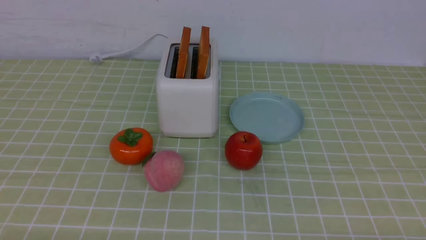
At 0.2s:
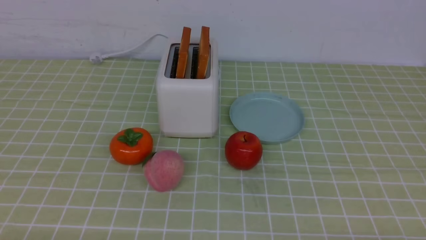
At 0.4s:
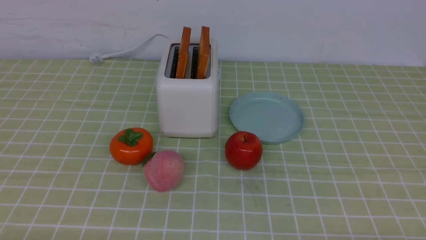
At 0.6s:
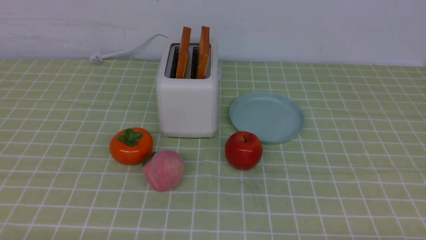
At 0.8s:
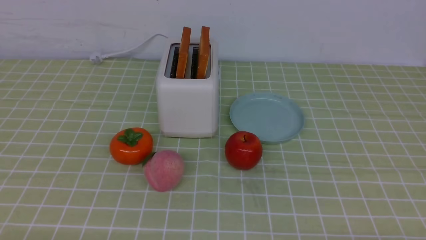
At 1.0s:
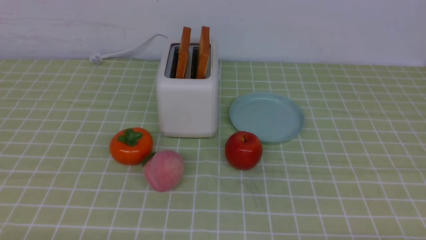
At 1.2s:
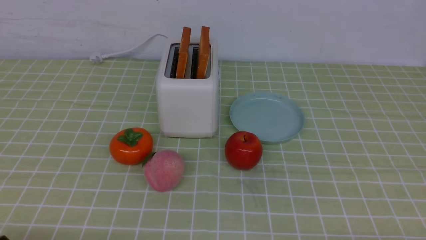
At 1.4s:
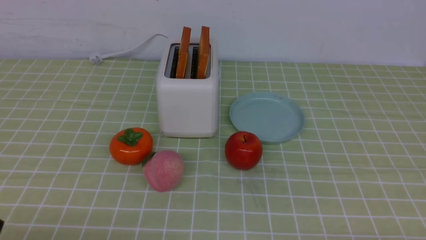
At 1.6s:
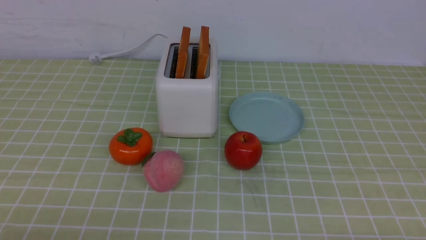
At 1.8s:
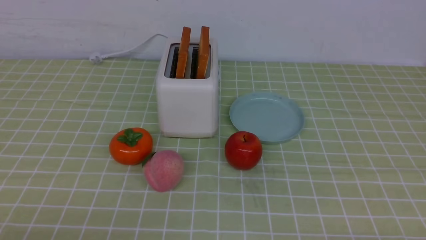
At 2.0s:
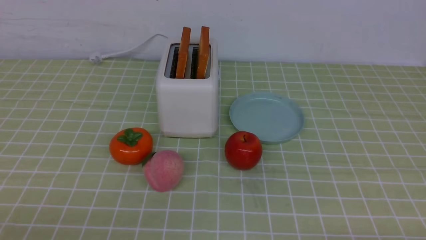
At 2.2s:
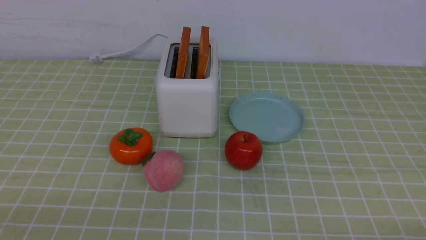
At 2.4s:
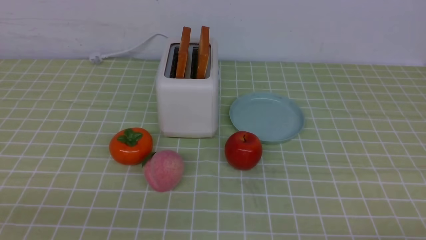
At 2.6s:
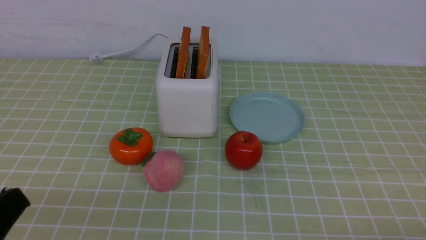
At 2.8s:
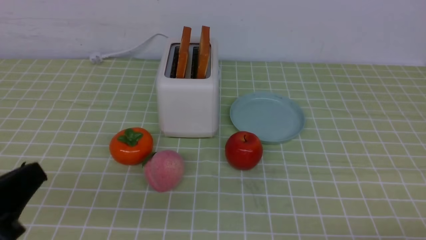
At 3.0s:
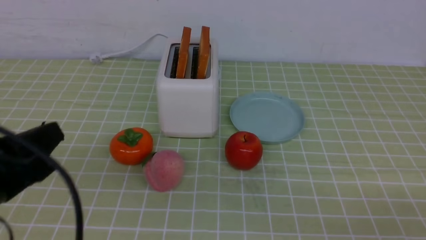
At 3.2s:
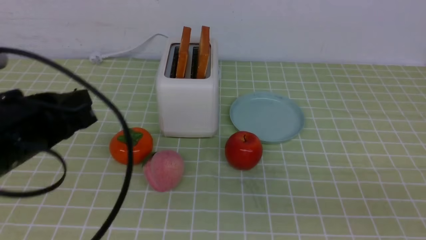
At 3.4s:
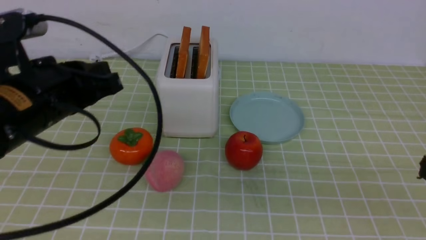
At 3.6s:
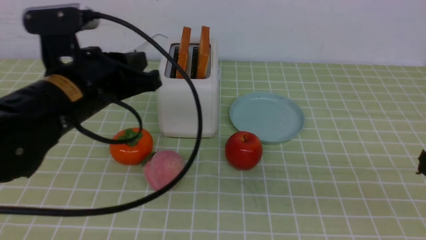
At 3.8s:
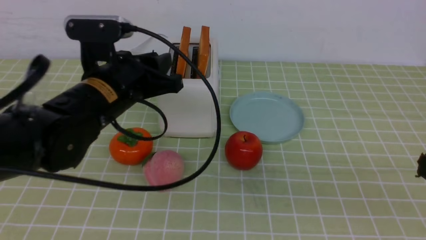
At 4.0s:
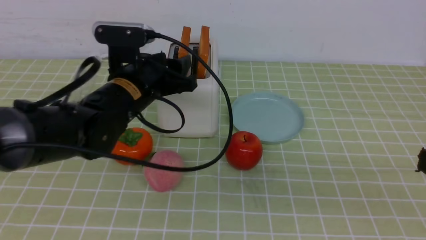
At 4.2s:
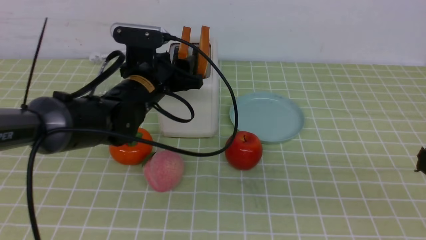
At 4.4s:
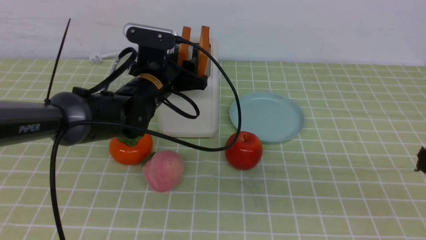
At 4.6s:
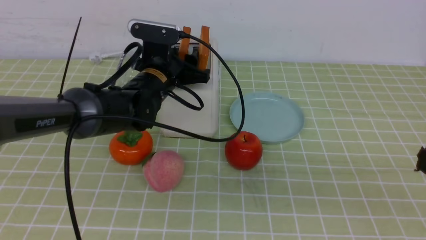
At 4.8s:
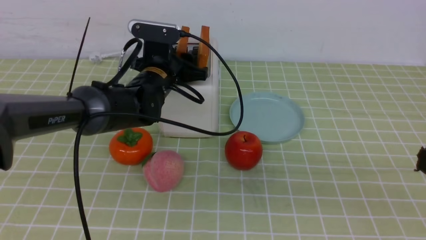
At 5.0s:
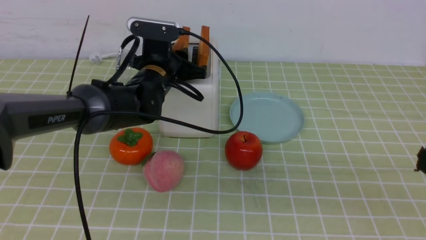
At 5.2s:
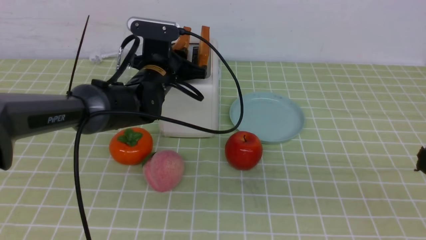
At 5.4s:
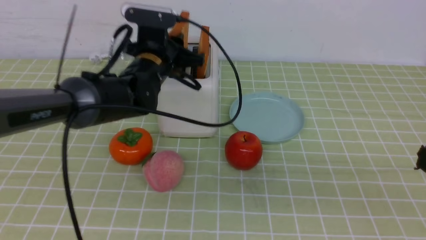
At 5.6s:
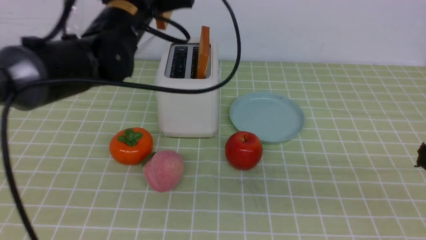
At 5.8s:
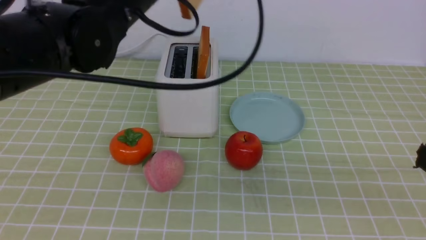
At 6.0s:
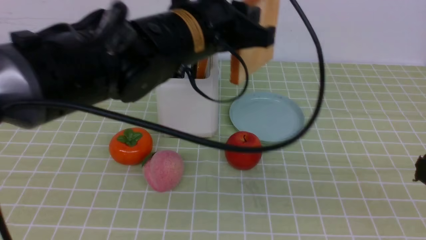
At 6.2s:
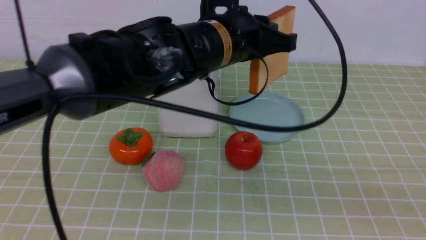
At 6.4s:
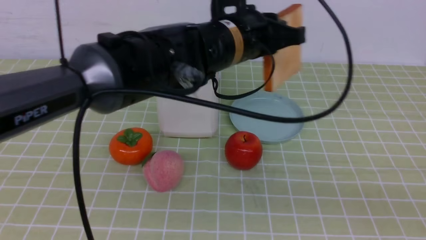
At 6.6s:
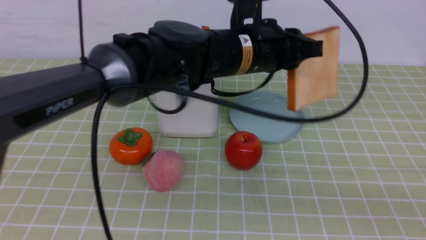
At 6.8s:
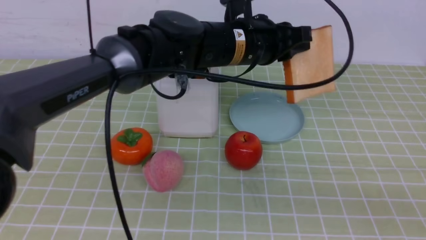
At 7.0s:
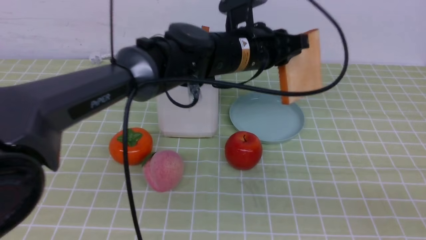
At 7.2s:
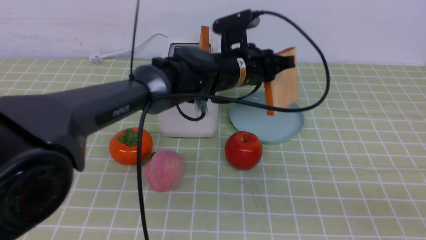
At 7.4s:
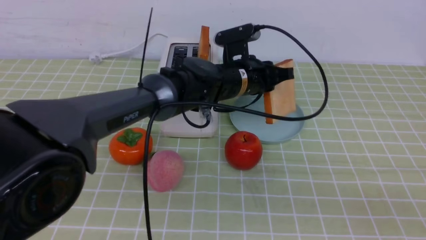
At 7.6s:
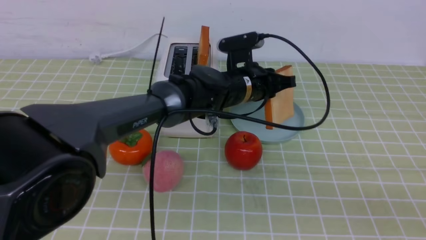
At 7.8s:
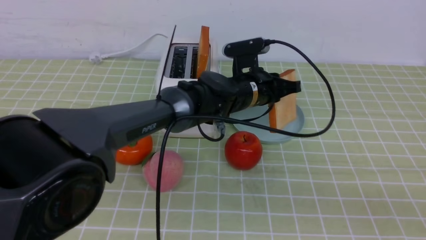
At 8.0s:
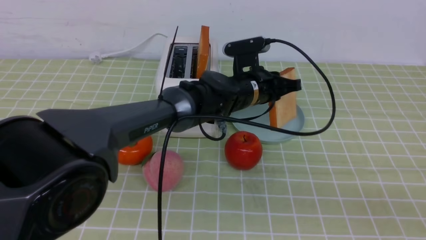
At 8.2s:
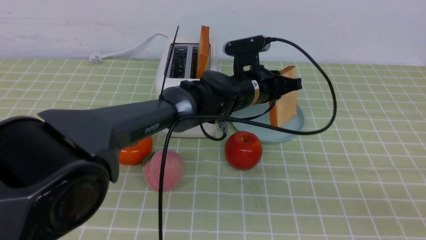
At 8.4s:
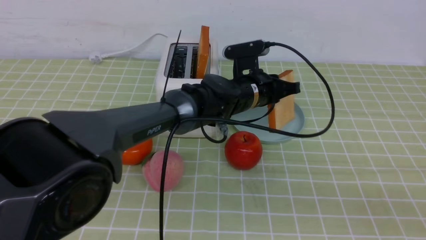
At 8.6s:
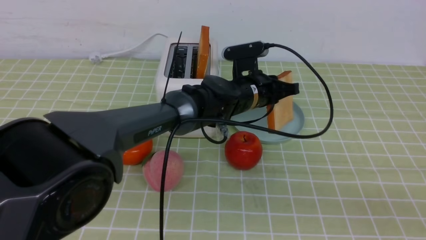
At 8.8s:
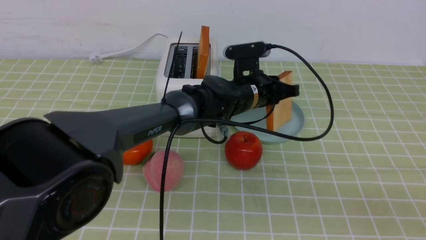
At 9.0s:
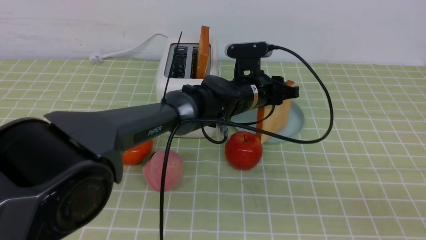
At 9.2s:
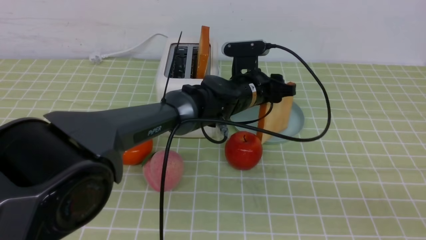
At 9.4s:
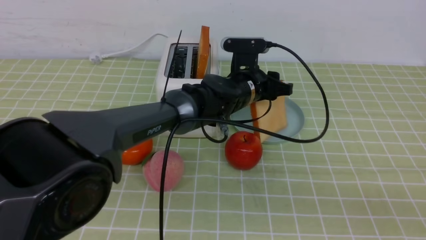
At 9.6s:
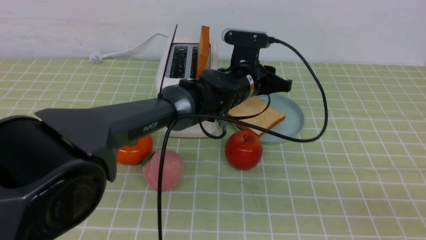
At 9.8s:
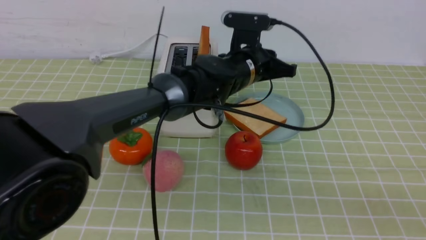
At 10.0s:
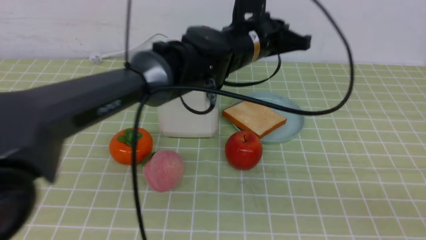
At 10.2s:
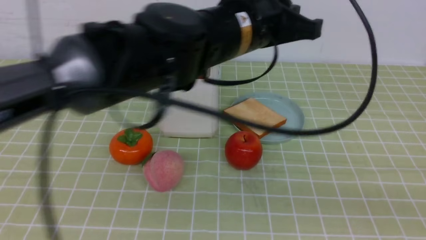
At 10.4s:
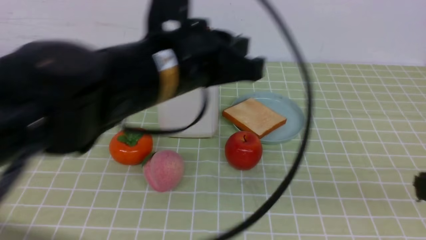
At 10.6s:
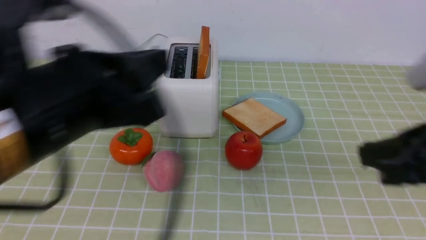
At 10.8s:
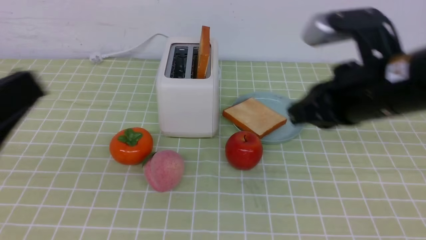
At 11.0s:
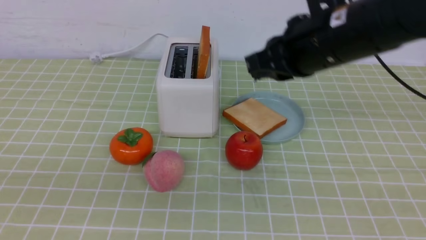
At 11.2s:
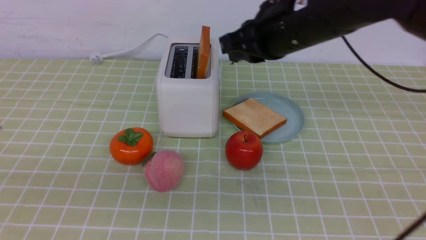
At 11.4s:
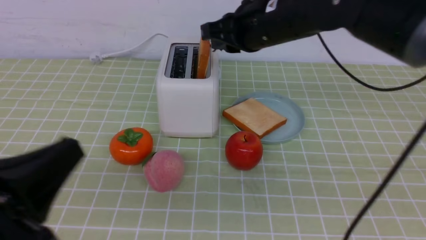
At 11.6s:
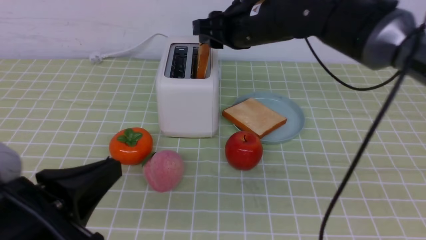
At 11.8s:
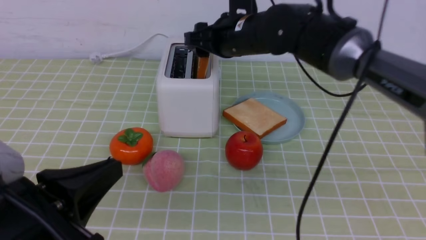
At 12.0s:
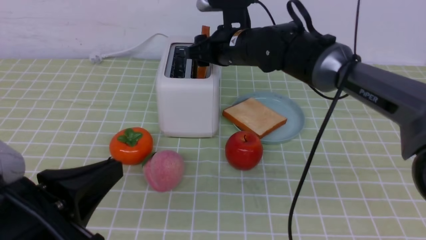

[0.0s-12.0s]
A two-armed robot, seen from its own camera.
Task of the whole recording: take toasted bread from bread machine on green coffee tablecloth place on plate.
Step, 0.0s to 5.8s: use the left arm to take out a slice of bread.
Step, 6.0s to 9.8s: use the left arm to put a slice of bread into the empty plate.
1.6s to 3.0s: The left gripper heads upward and forward, covering approximately 15 cm, and closes up.
3.0s to 4.4s: The right gripper moves upward, some 10 cm, while the left gripper moves forward and to the right, roughly 30 cm, and opens its fingers.
4.4s to 6.0s: The left gripper travels upward, backward and to the right by roughly 15 cm, and closes its fingers.
6.0s to 7.6s: The left gripper is displaced downward, forward and to the right by some 20 cm.
7.6s to 9.0s: The left gripper opens up.
9.0s to 10.4s: The right gripper ends up some 5 cm from where it was. Meanwhile the left gripper travels backward, upward and to the left by approximately 30 cm, and closes its fingers.
10.4s to 12.0s: The left gripper shifts approximately 20 cm backward, to the left and downward; the right gripper goes approximately 40 cm forward and to the left, and opens.

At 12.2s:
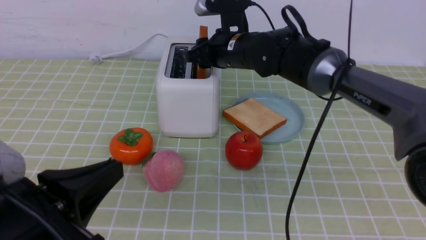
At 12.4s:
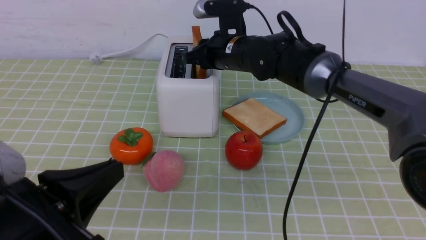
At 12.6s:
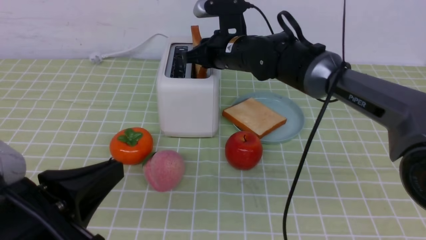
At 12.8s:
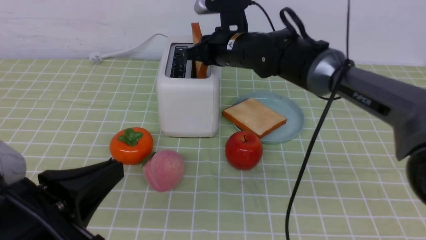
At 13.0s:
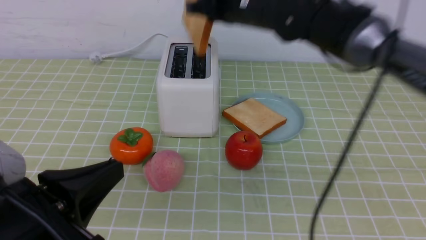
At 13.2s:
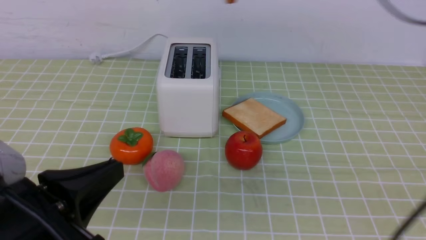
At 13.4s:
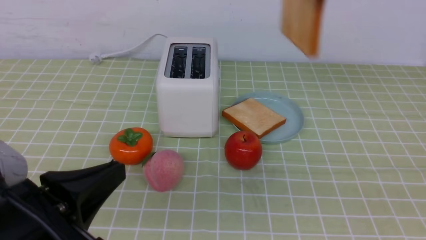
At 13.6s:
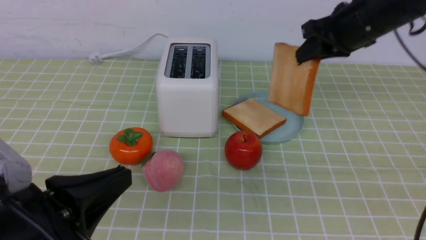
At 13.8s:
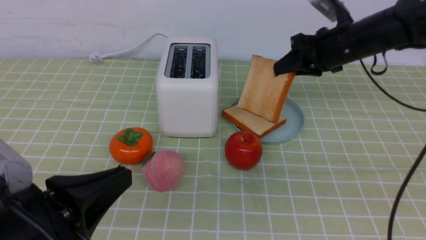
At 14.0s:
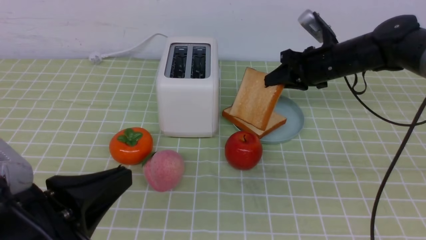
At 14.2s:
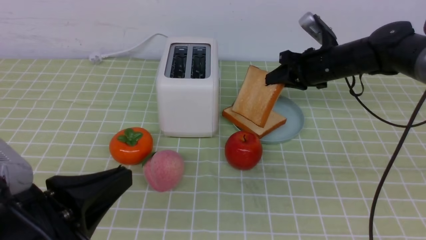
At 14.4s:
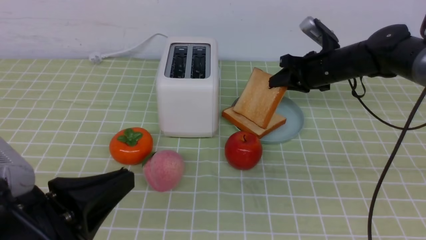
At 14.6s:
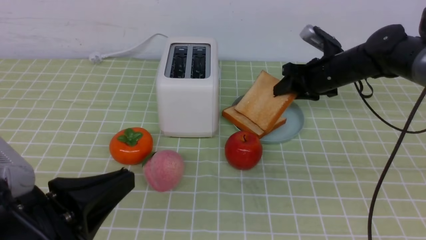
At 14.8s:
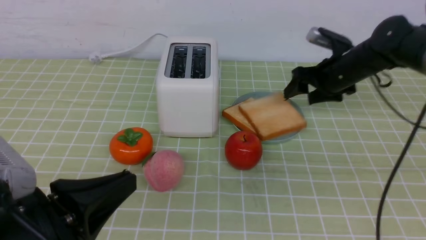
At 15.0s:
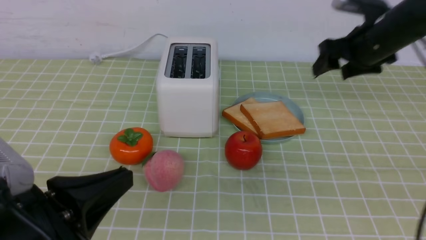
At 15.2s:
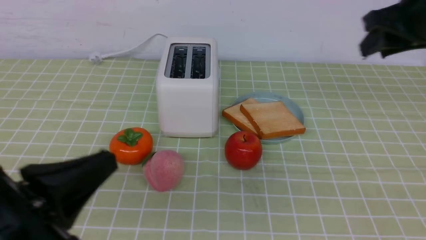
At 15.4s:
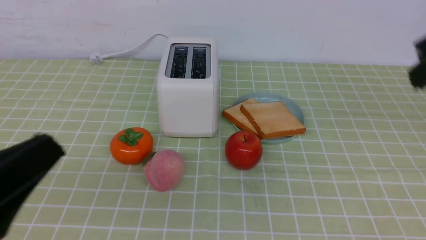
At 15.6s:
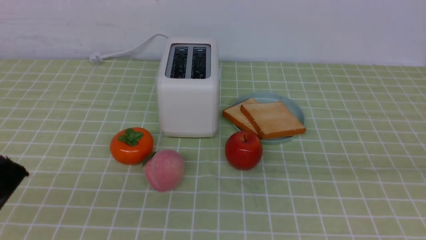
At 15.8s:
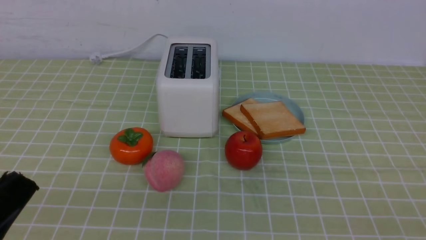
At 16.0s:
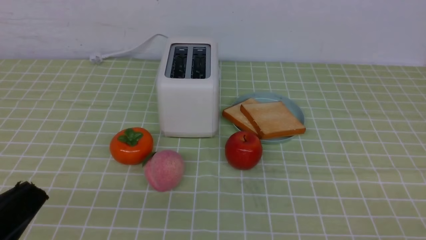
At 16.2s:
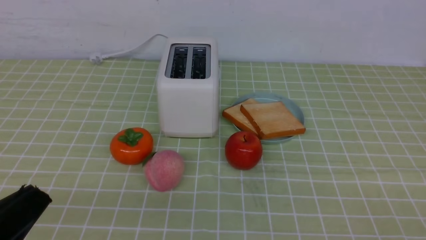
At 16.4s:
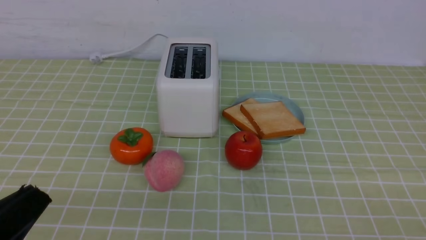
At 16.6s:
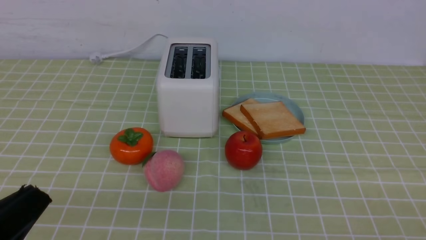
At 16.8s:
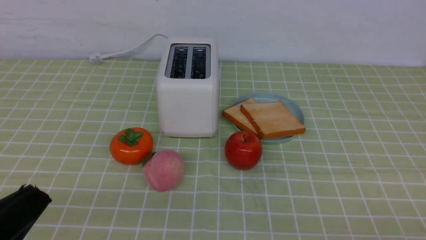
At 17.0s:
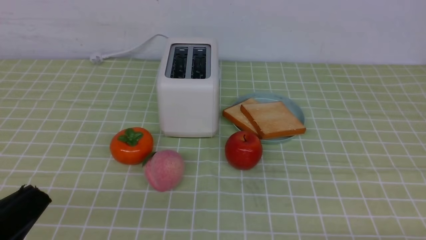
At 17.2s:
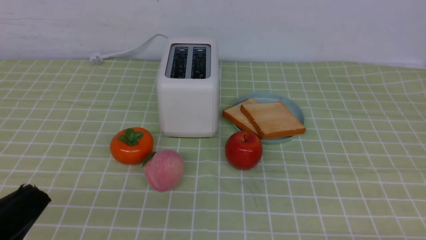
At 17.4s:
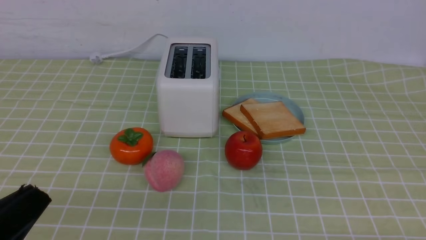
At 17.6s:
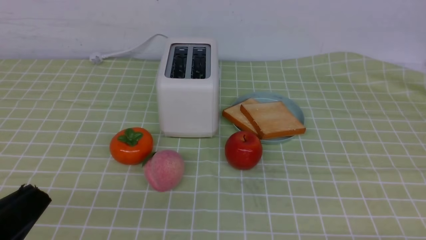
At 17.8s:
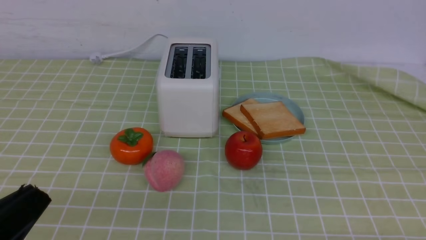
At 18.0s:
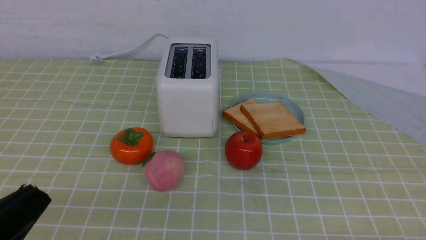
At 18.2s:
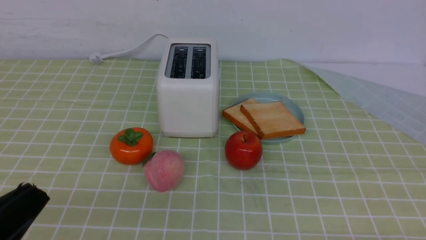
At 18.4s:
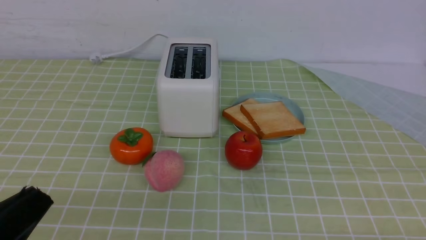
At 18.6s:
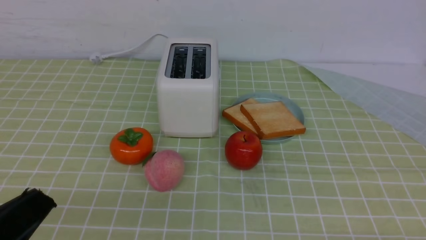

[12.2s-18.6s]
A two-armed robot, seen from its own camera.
Task of the whole recording: take toasted bread from bread machine on green coffee tablecloth place on plate.
Step, 13.4s to 15.0s: use the right arm to put a slice of bread into the plate.
12.2s to 13.8s: The right gripper shifts approximately 15 cm to the right, and closes up.
13.8s to 15.4s: The right gripper is displaced backward and upward by about 25 cm, and opens and closes again. The left gripper changes place by approximately 5 cm.
15.4s to 17.0s: The right gripper goes roughly 30 cm downward and backward.
17.0s to 18.6s: The grippers stay close to where they were, moving slightly.
